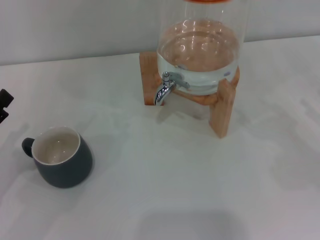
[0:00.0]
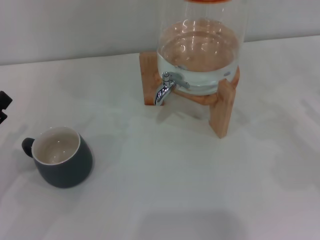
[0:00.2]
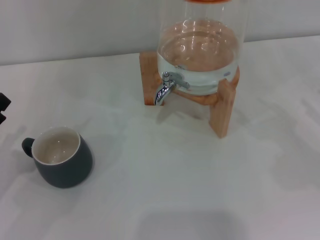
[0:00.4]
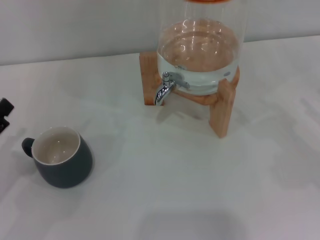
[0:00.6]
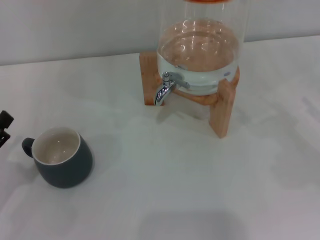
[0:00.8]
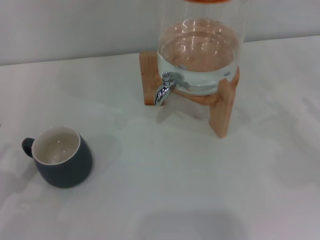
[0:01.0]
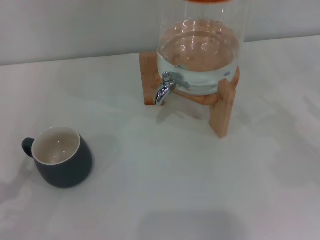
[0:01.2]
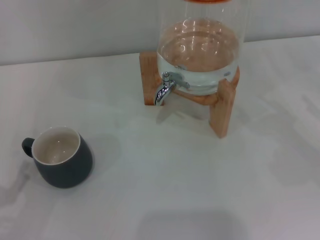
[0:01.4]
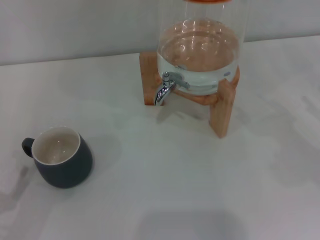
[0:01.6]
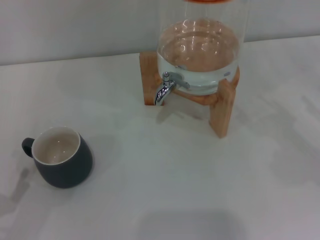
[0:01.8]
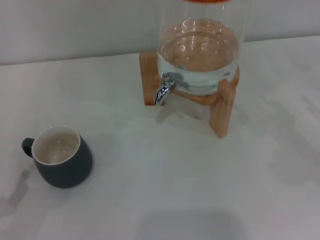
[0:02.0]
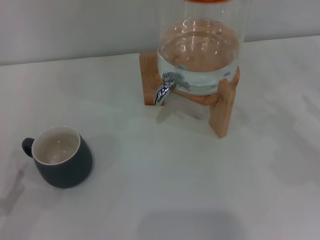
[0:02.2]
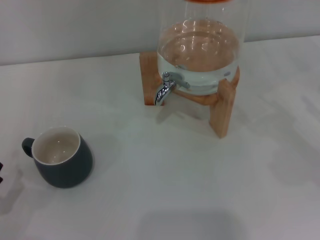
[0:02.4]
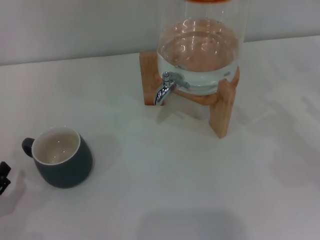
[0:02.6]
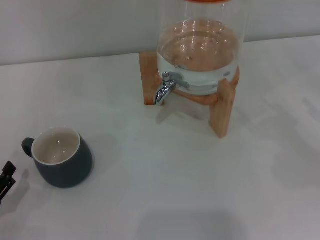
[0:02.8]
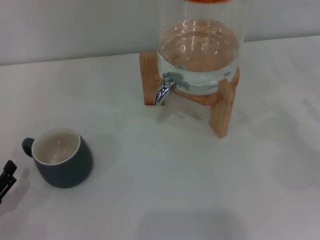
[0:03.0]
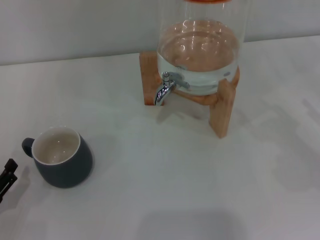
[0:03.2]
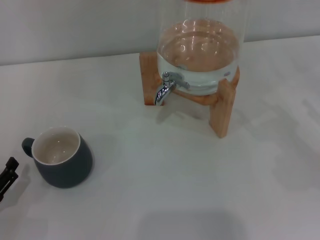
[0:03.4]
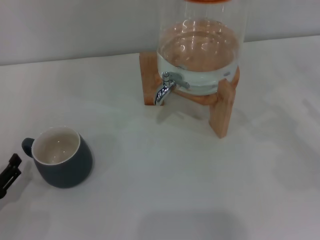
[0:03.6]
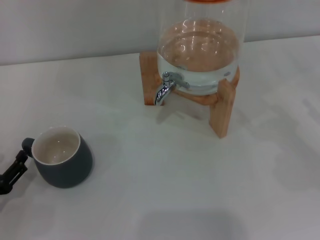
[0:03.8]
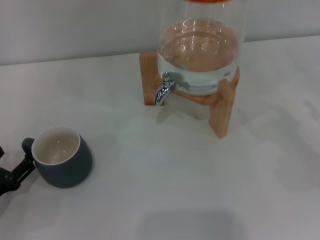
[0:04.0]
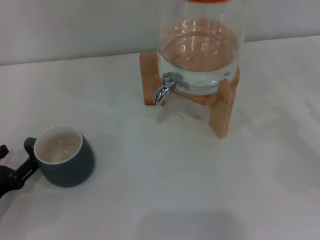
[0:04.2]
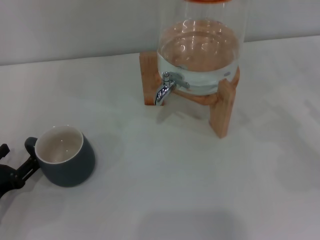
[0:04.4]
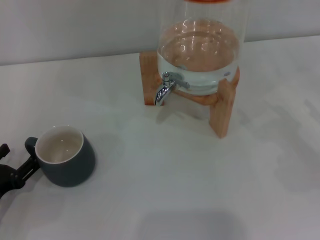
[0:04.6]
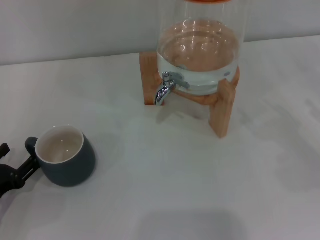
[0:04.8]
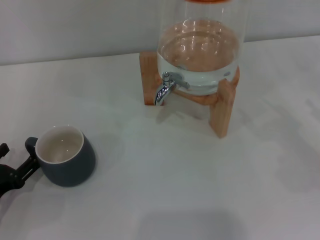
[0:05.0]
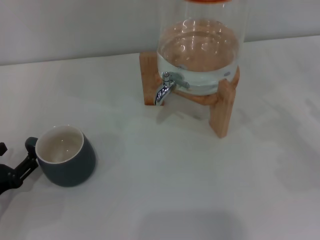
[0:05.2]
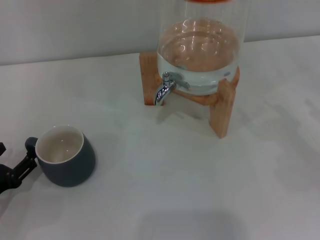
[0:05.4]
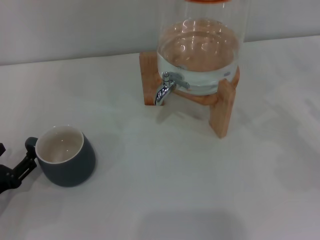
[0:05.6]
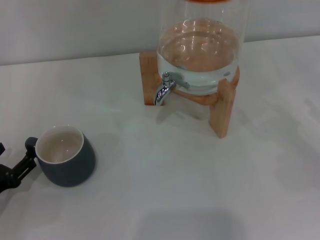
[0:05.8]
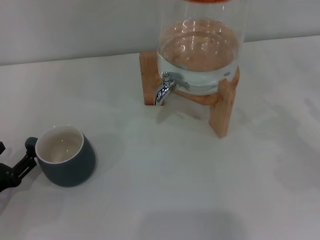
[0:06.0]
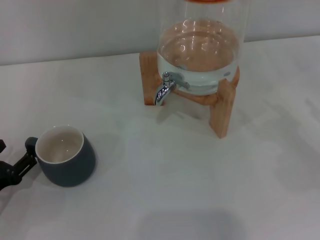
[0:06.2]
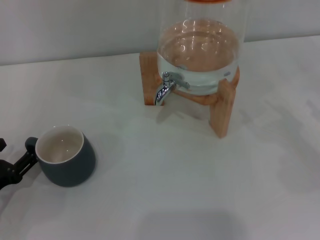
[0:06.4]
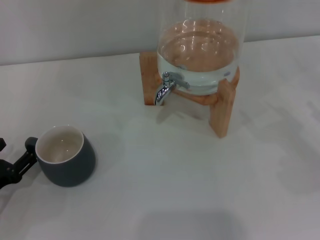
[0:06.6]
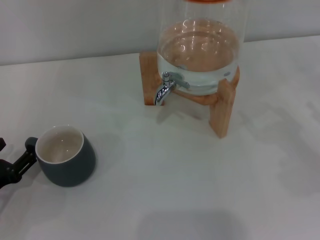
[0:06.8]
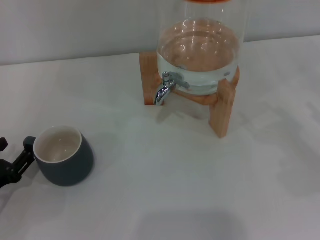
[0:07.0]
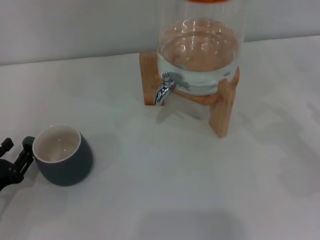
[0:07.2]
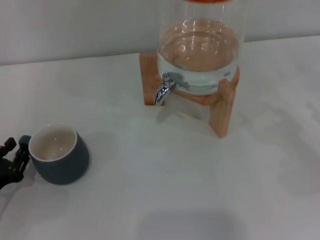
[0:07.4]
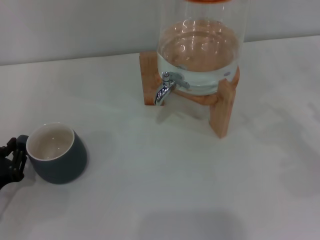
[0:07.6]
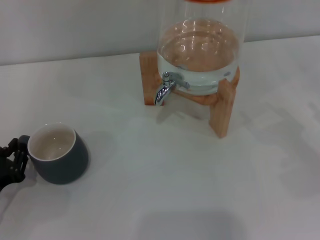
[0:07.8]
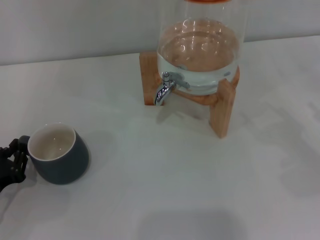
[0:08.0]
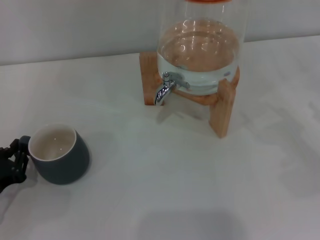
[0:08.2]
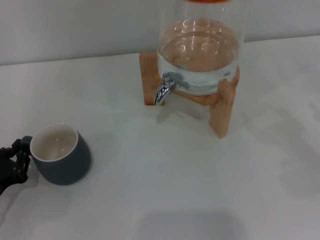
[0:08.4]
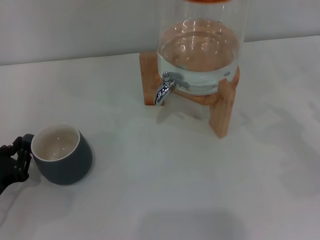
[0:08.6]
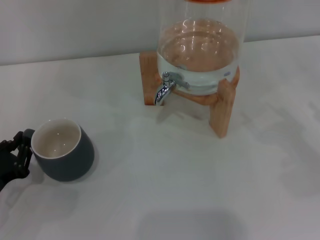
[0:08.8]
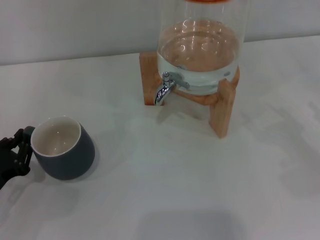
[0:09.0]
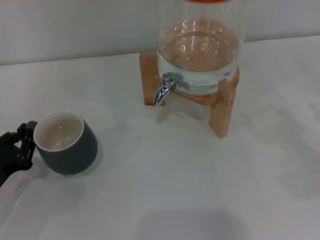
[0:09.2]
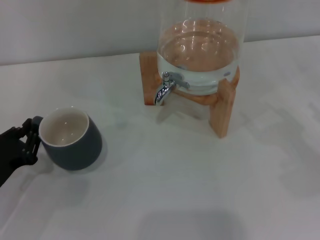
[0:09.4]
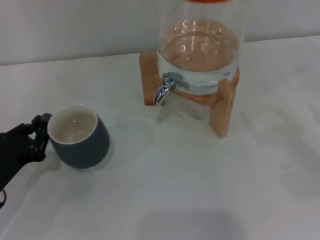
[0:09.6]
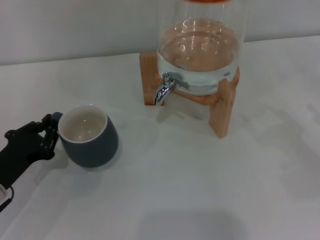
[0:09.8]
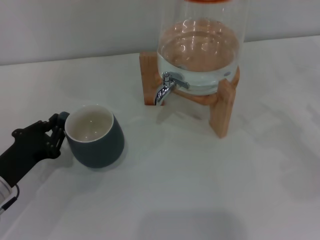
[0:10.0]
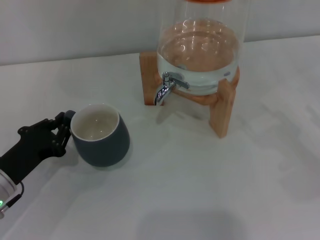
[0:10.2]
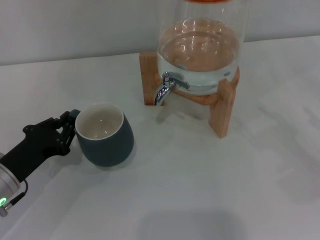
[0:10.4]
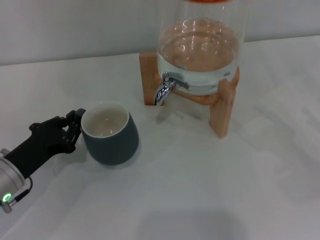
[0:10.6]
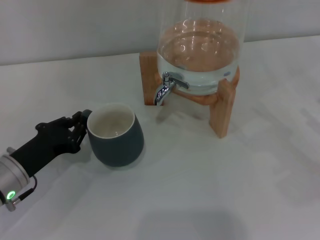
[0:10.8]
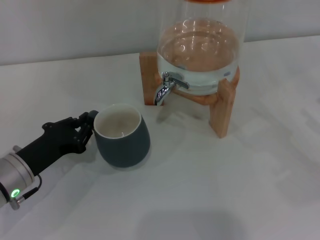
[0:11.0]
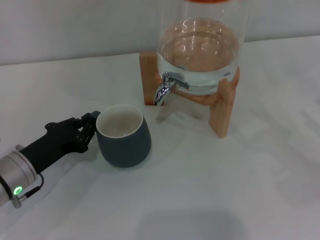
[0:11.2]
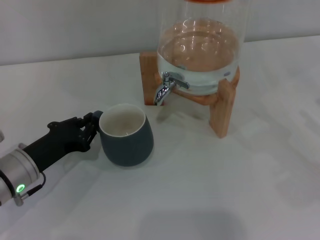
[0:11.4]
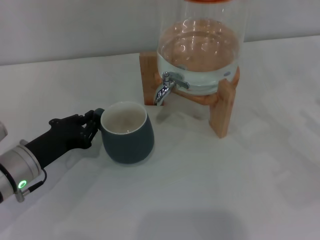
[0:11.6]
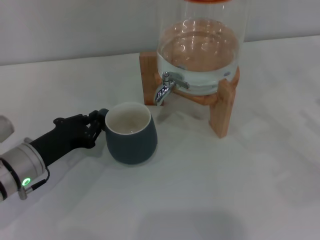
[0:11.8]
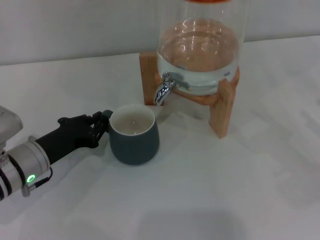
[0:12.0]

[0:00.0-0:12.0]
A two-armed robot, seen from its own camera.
Task of the whole recording: the left gripper pick up the black cup and place it horizontally under the faucet, the right gripper turn on the faucet to fill the cup, and then turn off the faucet.
0:00.0 to 0:01.6: The left gripper heads backward and downward, covering approximately 10 cm.
0:03.0 to 0:04.4: The left gripper moves some 5 cm.
0:04.4 to 0:06.0: The two grippers keep their place.
0:06.0 to 0:07.6: The left gripper closes.
0:07.6 to 0:09.0: The grippers stay close to where they were, moving slightly.
0:09.0 to 0:10.4: The left gripper changes place by about 5 cm.
0:10.4 to 0:12.0: The left gripper moves about 5 cm.

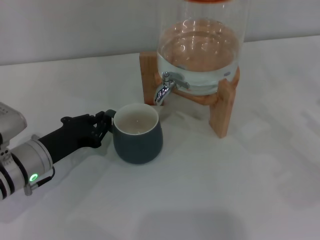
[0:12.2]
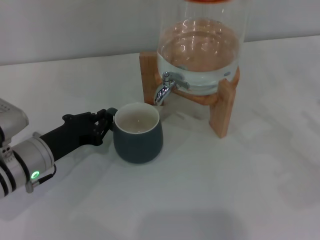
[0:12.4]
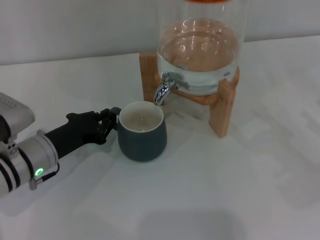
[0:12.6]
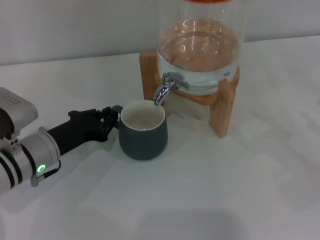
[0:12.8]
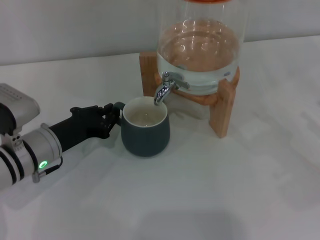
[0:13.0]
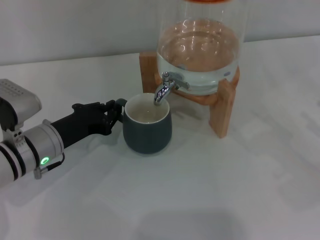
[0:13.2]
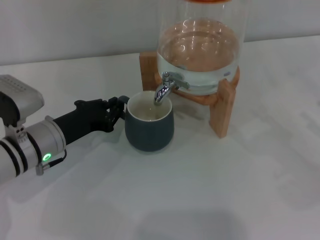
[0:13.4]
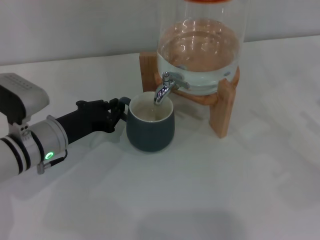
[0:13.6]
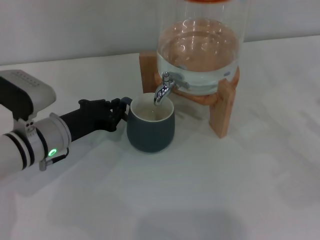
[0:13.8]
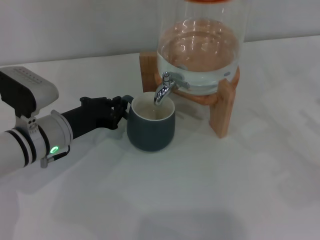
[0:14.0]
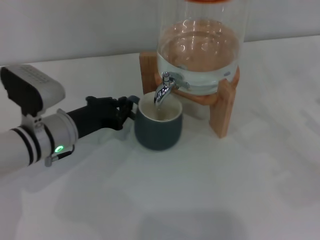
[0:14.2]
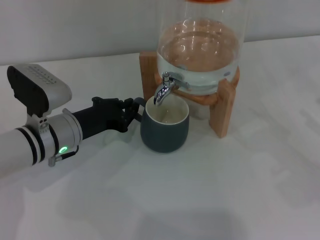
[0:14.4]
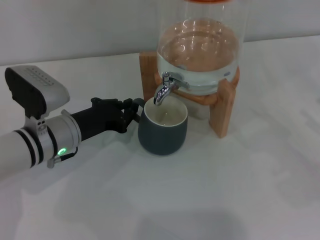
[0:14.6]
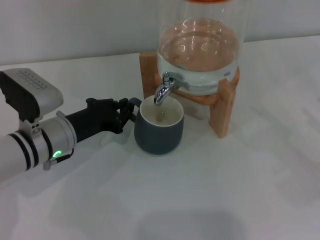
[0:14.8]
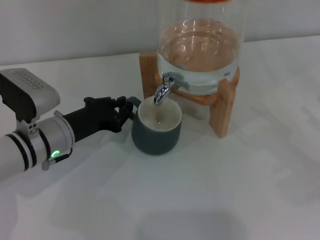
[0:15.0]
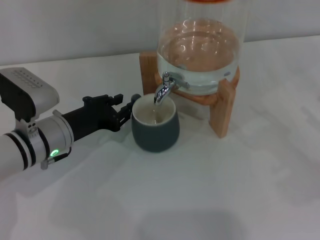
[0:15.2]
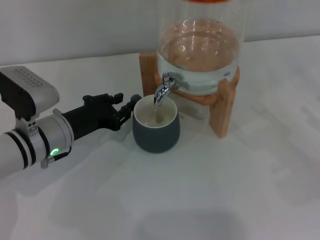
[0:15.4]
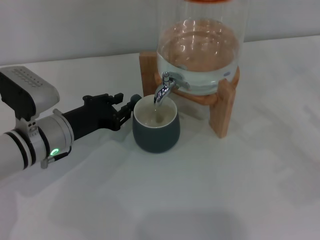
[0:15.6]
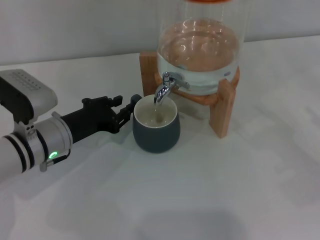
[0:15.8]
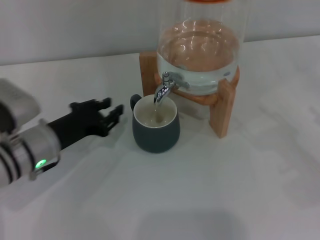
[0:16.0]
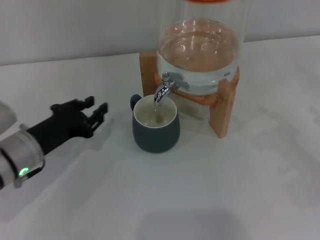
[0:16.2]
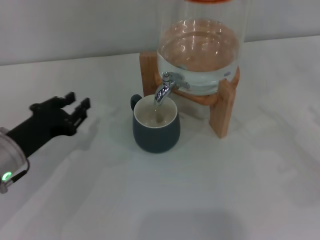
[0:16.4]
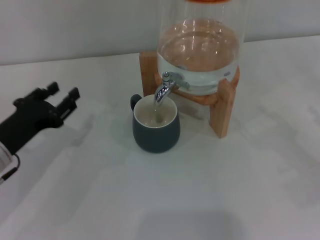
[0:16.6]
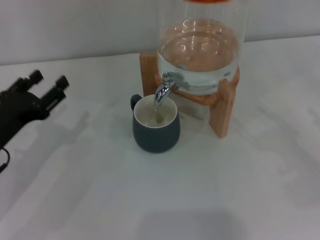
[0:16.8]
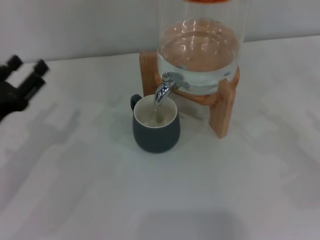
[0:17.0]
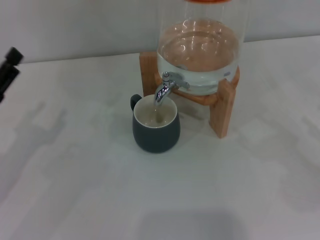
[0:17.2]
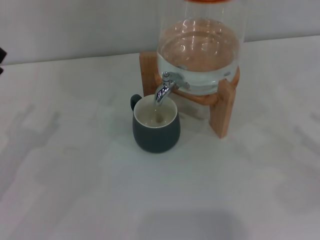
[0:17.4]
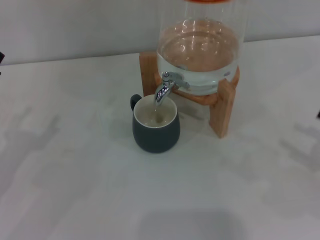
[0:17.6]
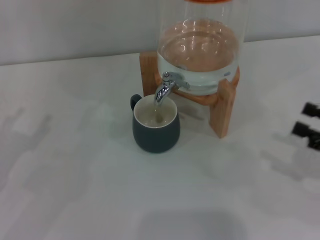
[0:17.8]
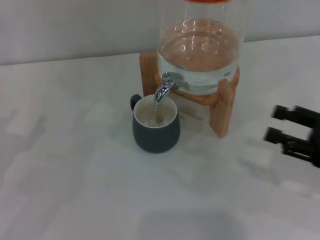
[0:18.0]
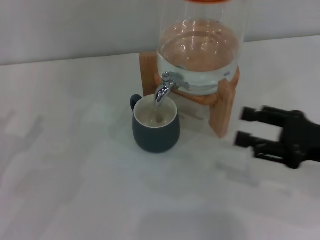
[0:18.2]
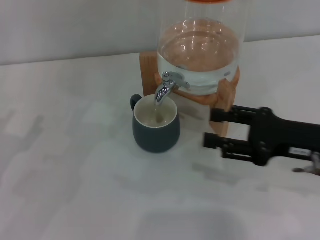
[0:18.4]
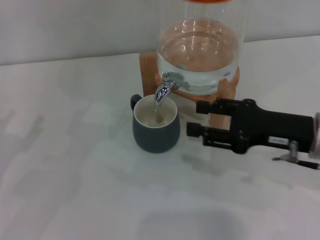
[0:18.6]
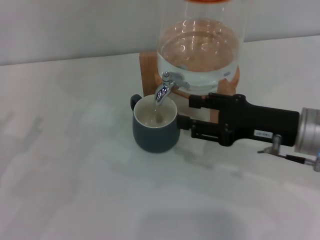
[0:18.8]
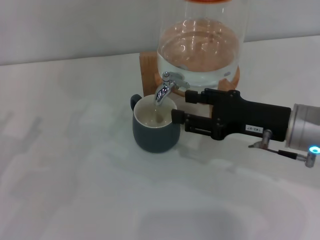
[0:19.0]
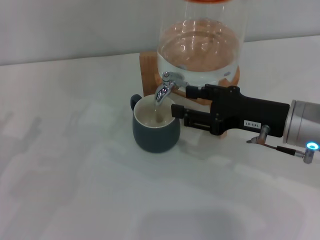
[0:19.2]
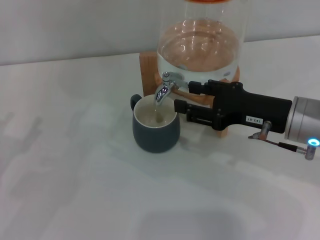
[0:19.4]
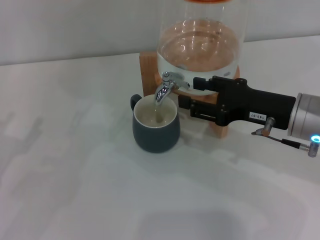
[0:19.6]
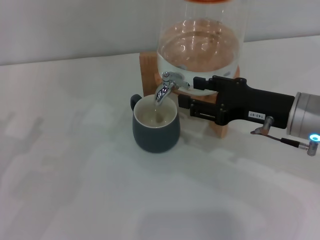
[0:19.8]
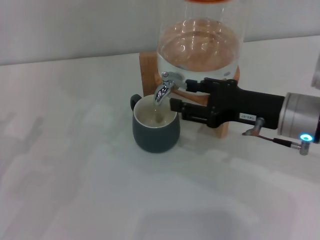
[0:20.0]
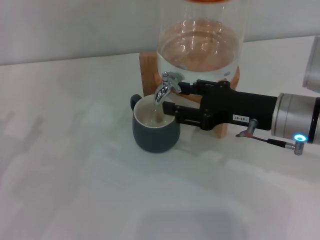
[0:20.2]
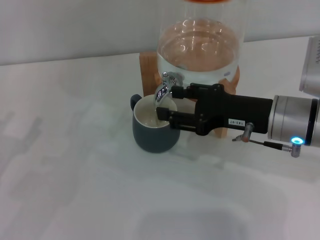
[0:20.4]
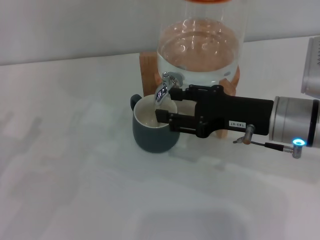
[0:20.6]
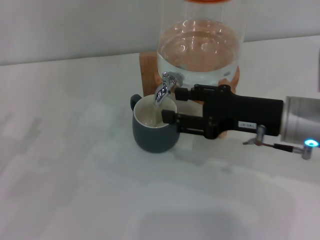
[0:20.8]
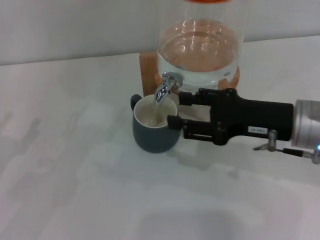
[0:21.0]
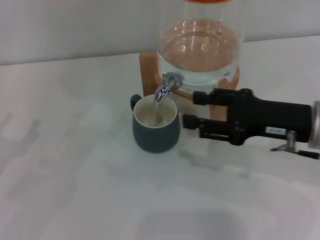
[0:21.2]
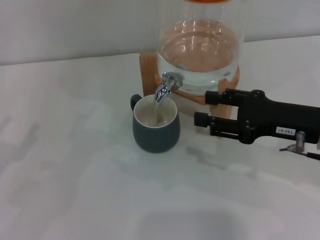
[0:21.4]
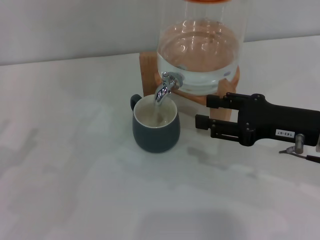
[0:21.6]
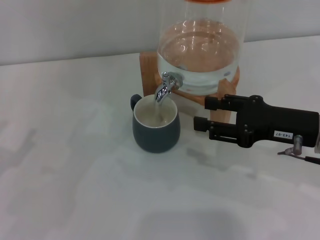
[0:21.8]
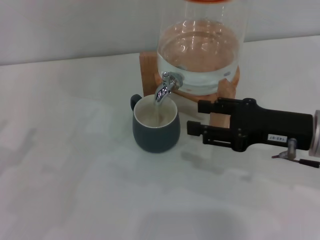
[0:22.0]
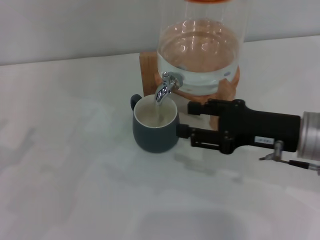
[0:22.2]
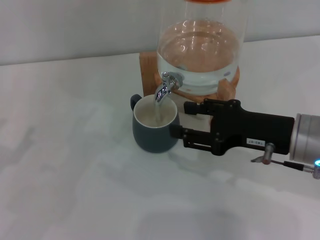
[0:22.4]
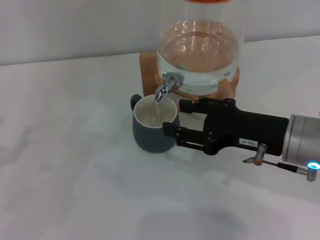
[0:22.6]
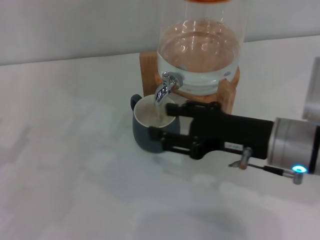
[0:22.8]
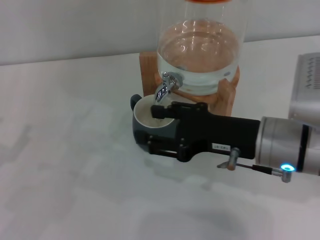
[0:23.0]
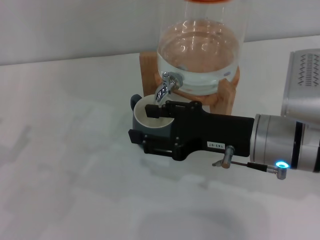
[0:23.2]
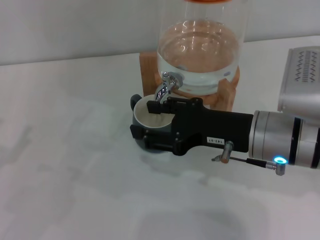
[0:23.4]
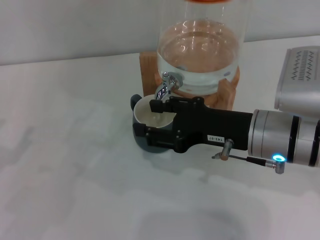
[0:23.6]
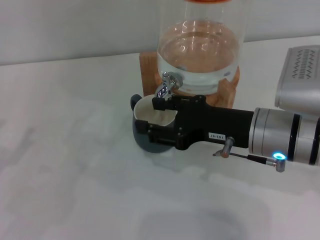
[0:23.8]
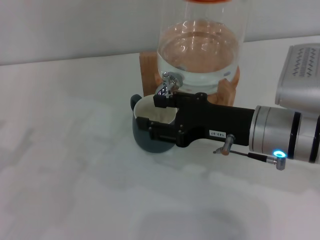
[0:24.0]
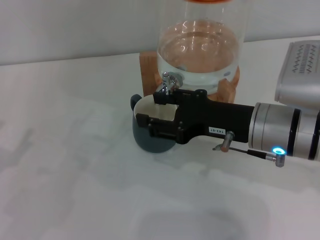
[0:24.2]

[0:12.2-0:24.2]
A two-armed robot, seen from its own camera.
Task of the whole recording: the left gripper pick up the black cup and place it horizontally under the faucet, the right gripper turn on the faucet to fill the cup, and then turn off the faucet.
Step, 0:12.2 to 0:15.8: Move the cup beneath the water dispenser nozzle with the left gripper.
Step, 0:16.0 to 0:20.8: Open the dispenser valve and fill the cup with water with the right gripper.
0:12.2 to 0:13.8: The grippers make only small movements.
0:13.8 to 0:15.2: The grippers stay close to where they were, moving slightly.
0:15.2 to 0:16.6: The left gripper moves to the left, some 5 cm.
0:16.6 to 0:18.2: The right gripper goes roughly 10 cm to the left. The left gripper goes about 5 cm to the left, and opens.
0:18.2 to 0:19.8: The right gripper is displaced to the left and forward by roughly 10 cm.
0:19.8 to 0:22.6: The grippers stay close to where they were, moving slightly.
0:22.6 to 0:24.2: The grippers stay close to where they were, moving slightly.
